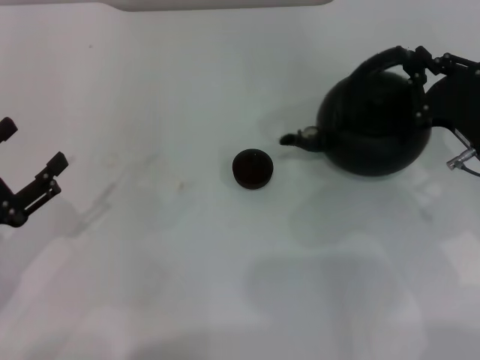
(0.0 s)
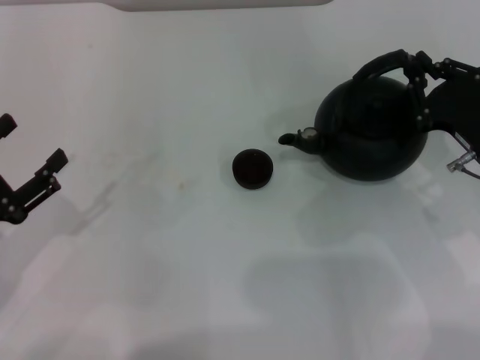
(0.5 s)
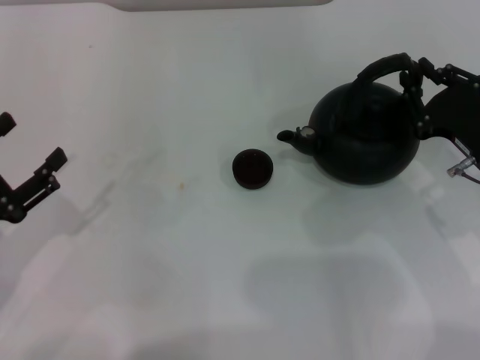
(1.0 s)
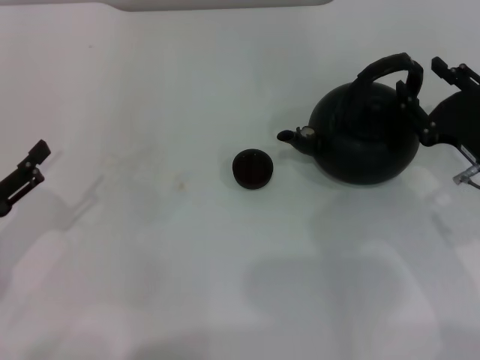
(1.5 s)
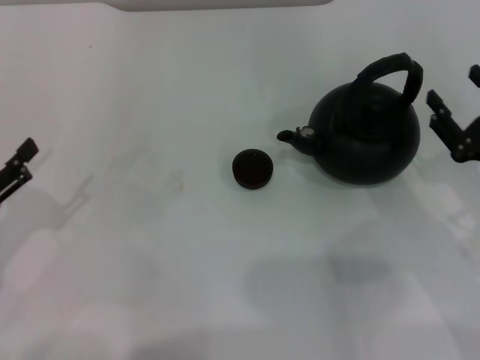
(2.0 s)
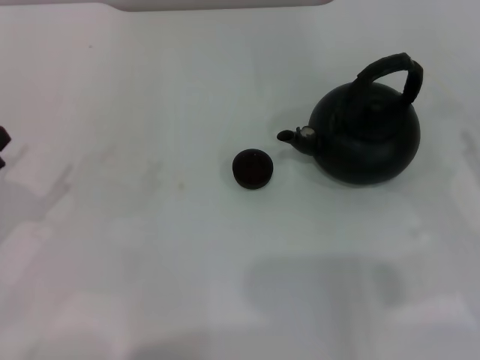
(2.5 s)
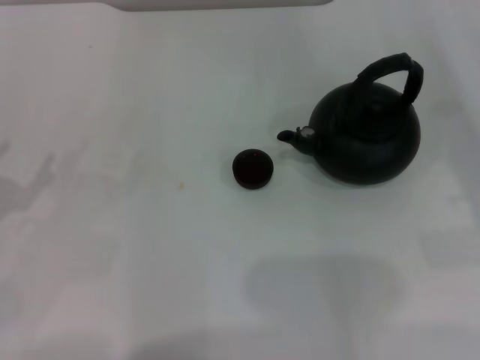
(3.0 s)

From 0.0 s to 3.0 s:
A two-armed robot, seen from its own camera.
Task of the whole recording: Grasp the handle of the teapot with one hand and pour tea into the teacup.
From 0.0 s to 1.5 s: The right gripper opens up.
From 1.5 s to 3.0 s: The right gripper shifts about 10 cm to the right, and opens up.
